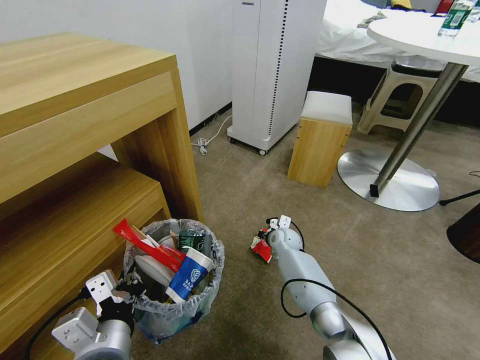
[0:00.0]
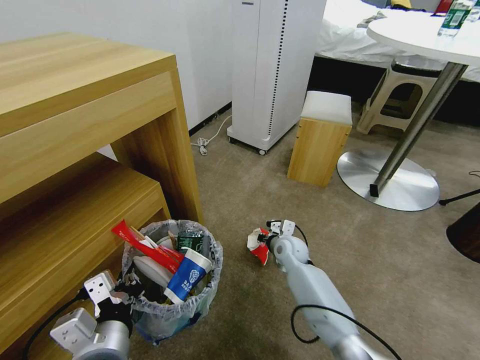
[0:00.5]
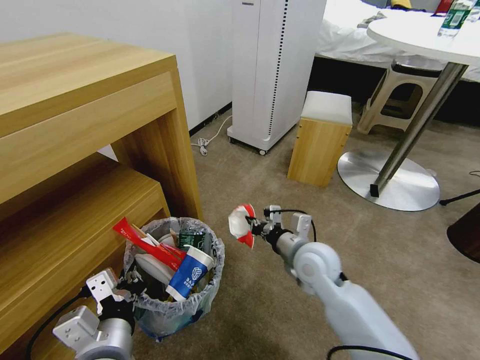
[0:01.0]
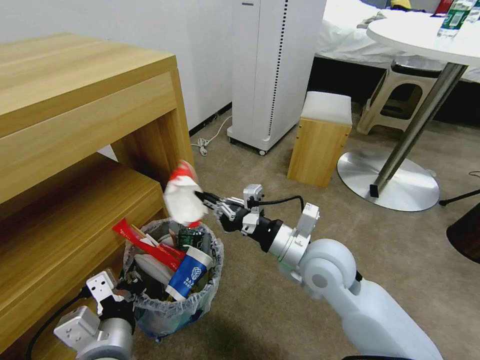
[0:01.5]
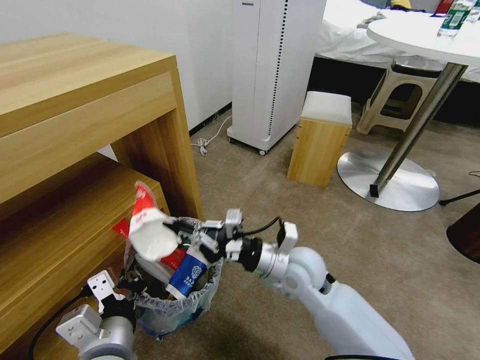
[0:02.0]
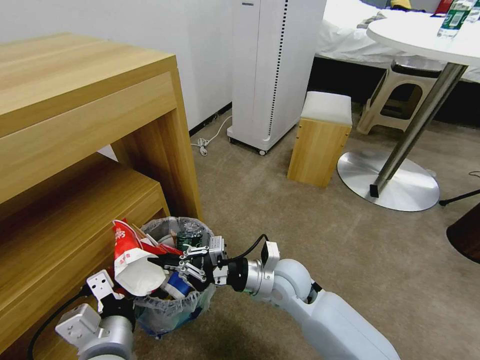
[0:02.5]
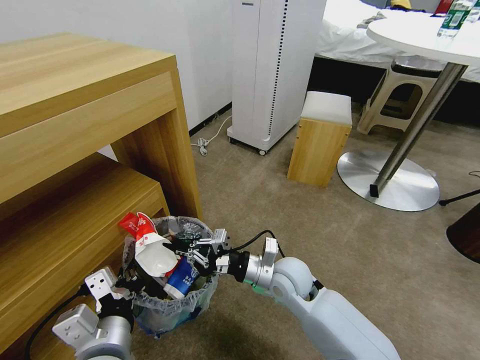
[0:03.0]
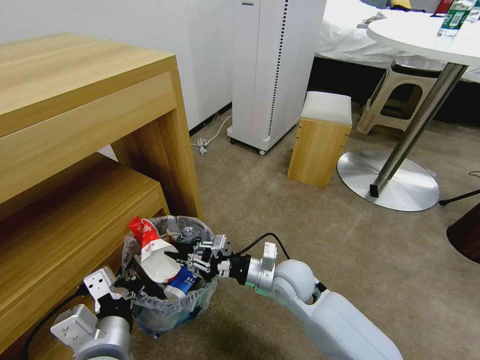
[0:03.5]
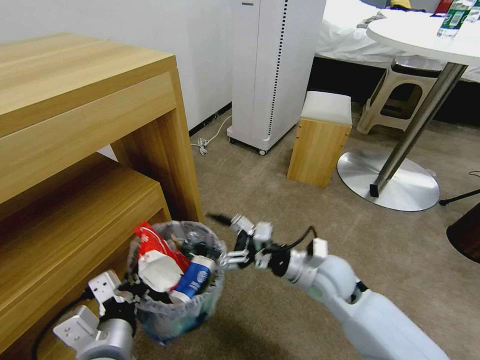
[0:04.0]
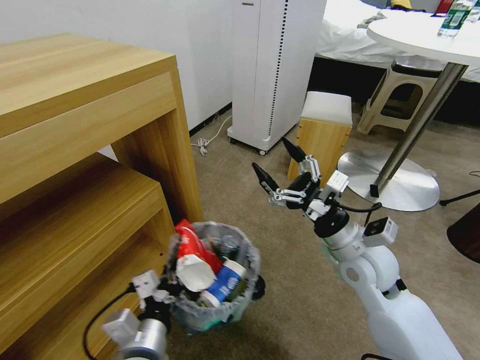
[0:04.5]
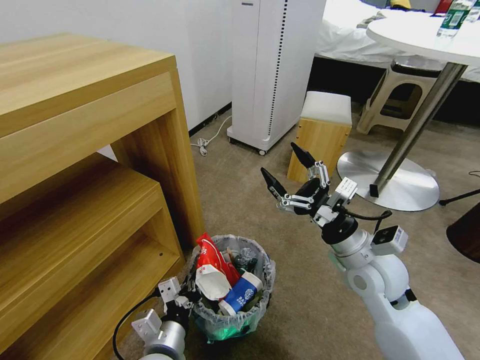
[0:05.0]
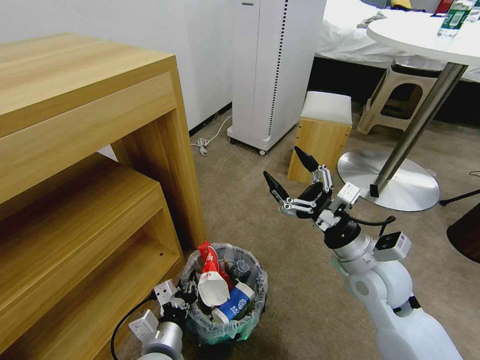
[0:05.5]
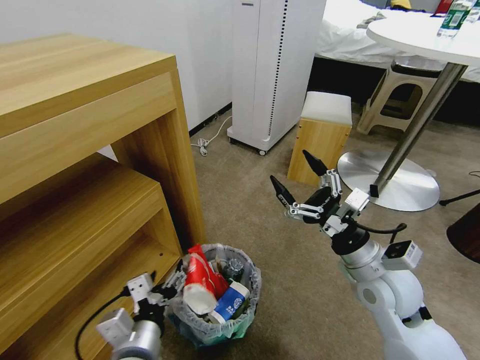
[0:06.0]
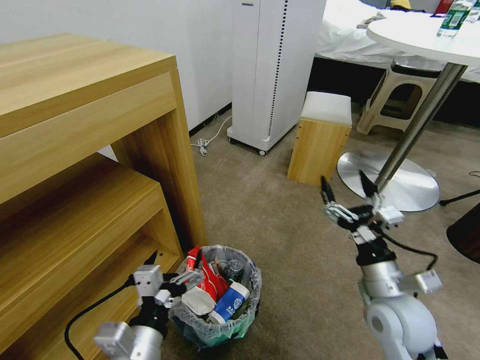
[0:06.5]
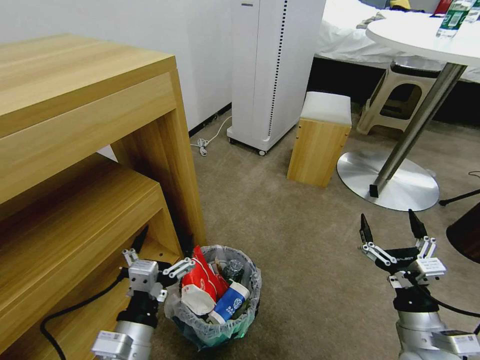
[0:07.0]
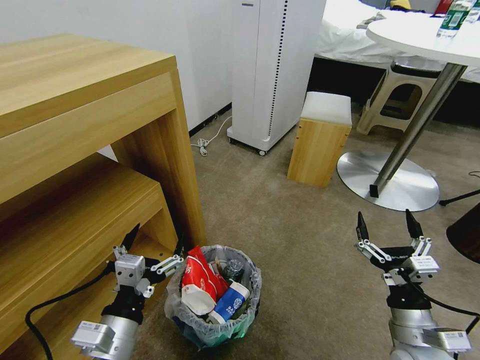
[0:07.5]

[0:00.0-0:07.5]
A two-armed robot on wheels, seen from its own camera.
Task of the whole recording: Pick up the trash bin and place the garbage on the floor into it.
0:00.0 to 0:02.0: The right gripper heads backward and upward, covering some 25 cm.
0:02.0 to 0:04.0: The right gripper travels to the right by some 5 cm, and opens its fingers.
0:04.0 to 0:05.5: The right gripper goes about 10 cm to the right and upward. Meanwhile the left gripper goes approximately 10 cm downward.
0:05.5 to 0:07.5: The left gripper travels upward and to the left by roughly 10 cm, and opens up. The right gripper moves backward, downward and to the right, about 15 cm.
